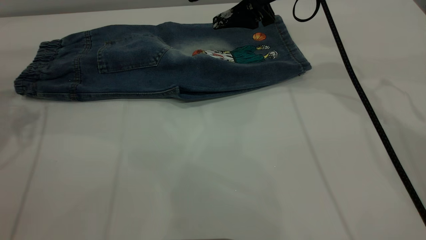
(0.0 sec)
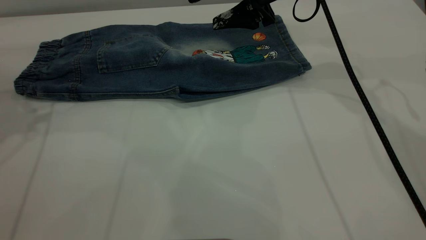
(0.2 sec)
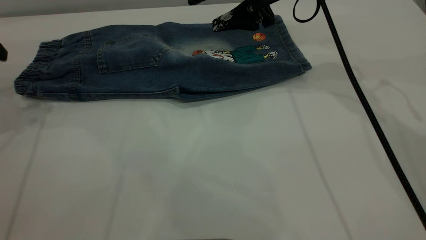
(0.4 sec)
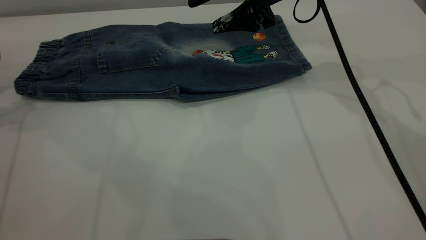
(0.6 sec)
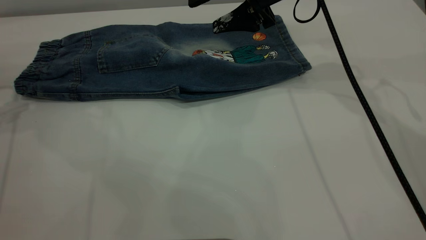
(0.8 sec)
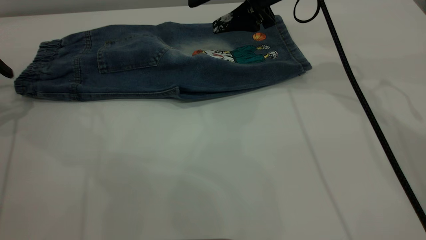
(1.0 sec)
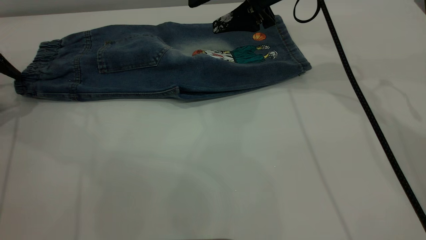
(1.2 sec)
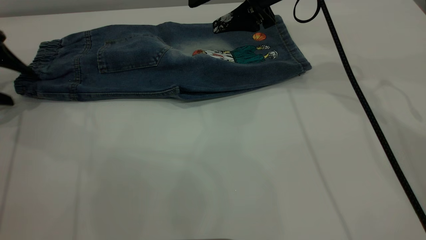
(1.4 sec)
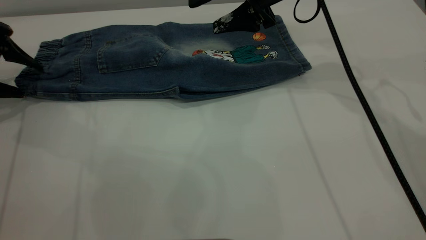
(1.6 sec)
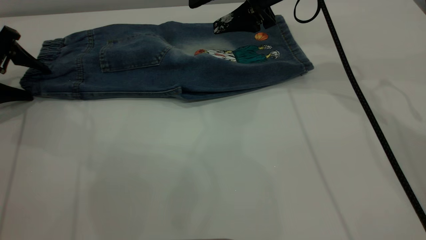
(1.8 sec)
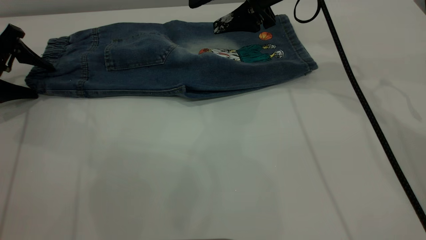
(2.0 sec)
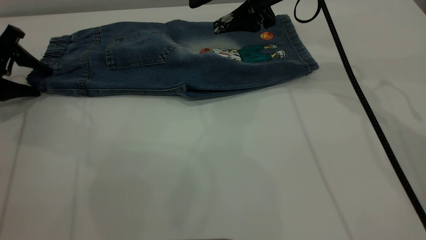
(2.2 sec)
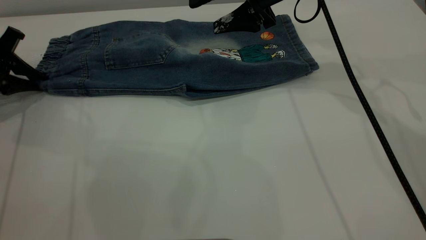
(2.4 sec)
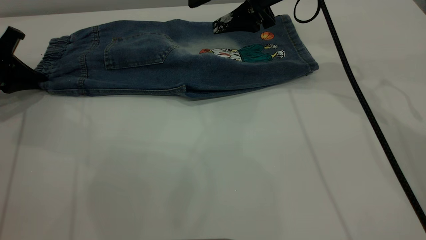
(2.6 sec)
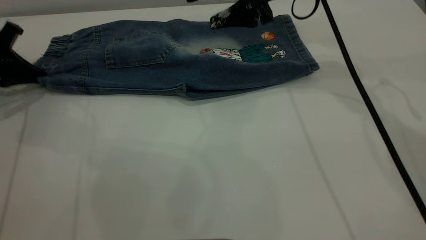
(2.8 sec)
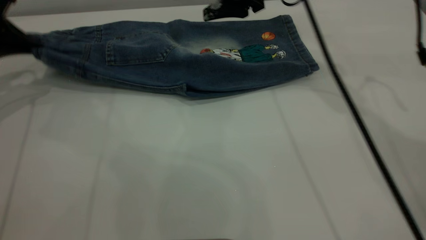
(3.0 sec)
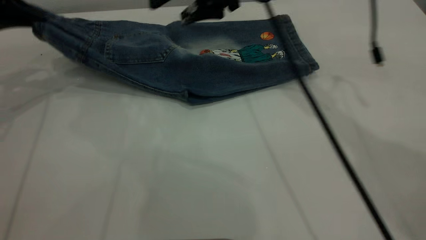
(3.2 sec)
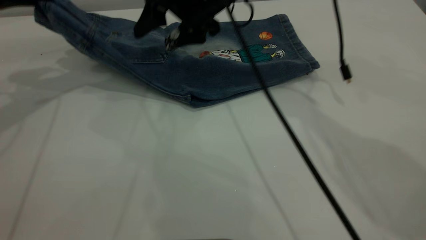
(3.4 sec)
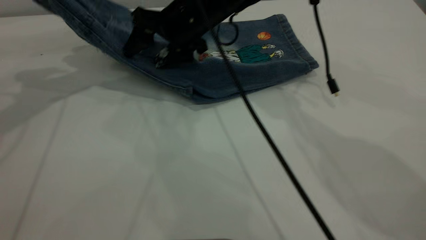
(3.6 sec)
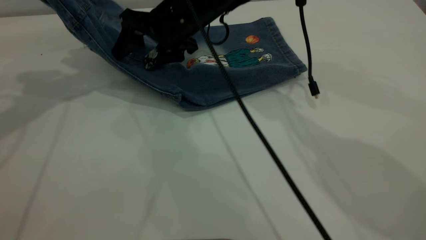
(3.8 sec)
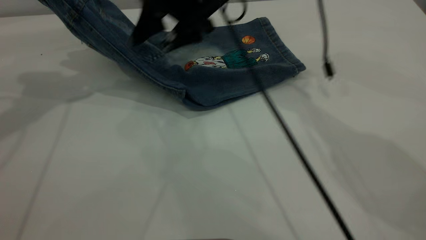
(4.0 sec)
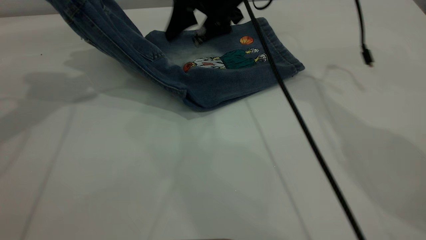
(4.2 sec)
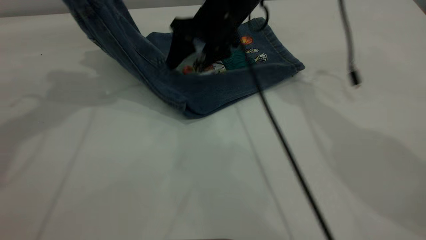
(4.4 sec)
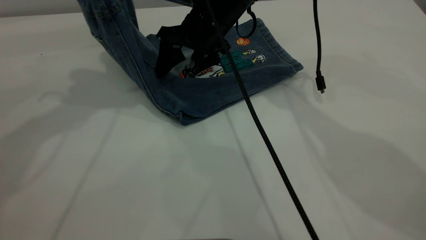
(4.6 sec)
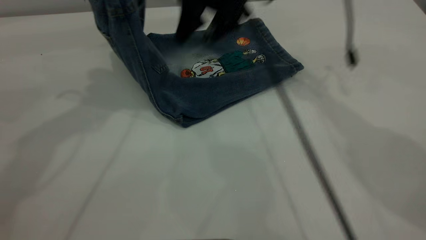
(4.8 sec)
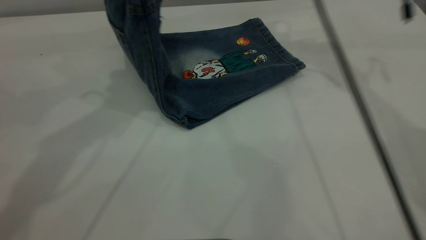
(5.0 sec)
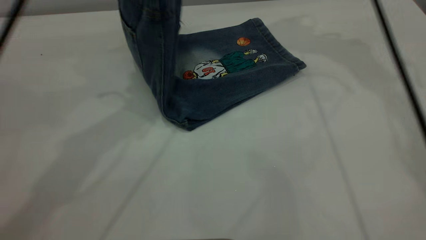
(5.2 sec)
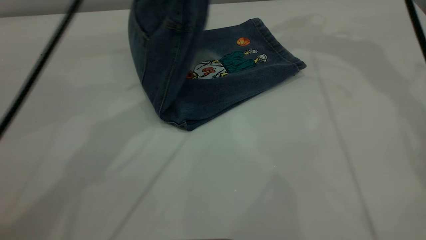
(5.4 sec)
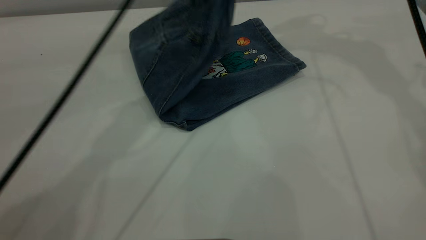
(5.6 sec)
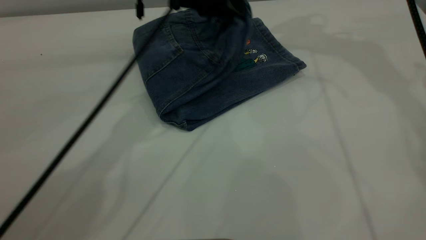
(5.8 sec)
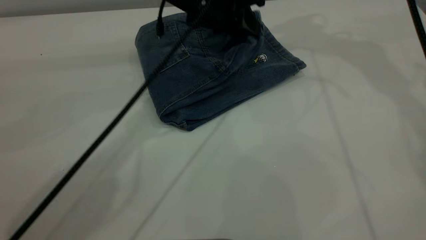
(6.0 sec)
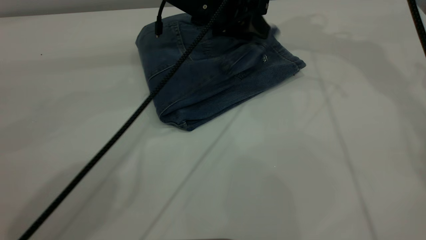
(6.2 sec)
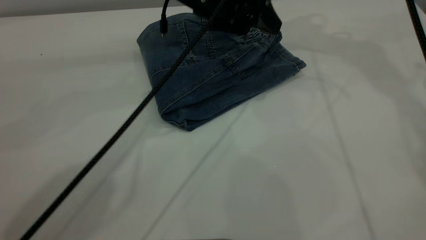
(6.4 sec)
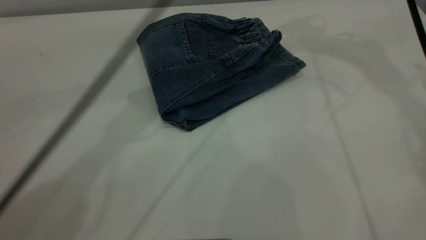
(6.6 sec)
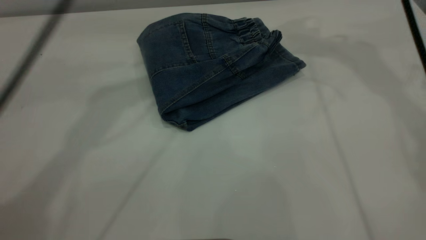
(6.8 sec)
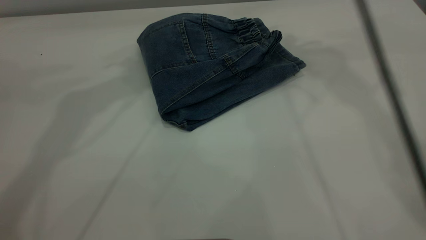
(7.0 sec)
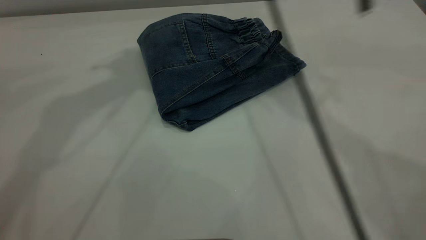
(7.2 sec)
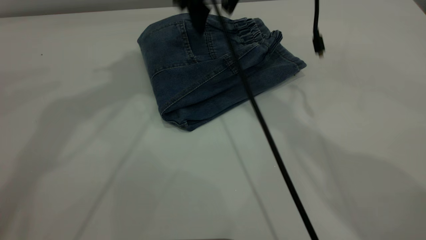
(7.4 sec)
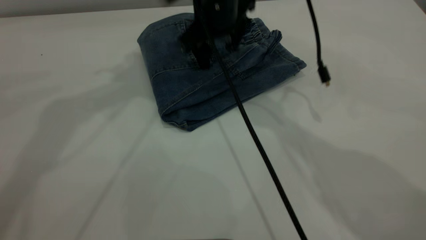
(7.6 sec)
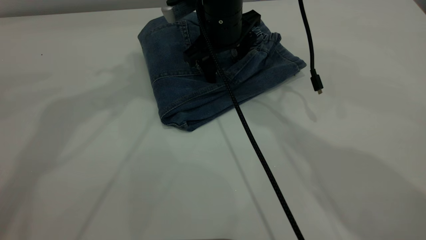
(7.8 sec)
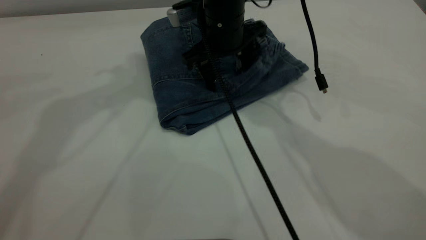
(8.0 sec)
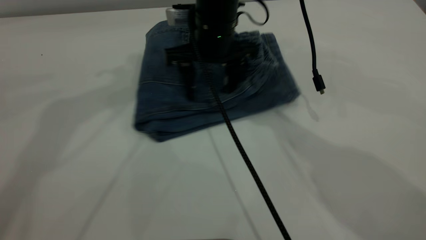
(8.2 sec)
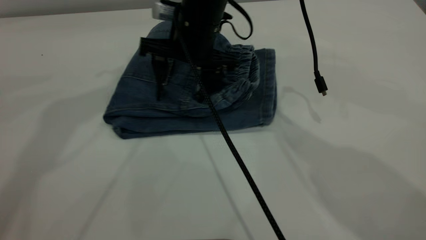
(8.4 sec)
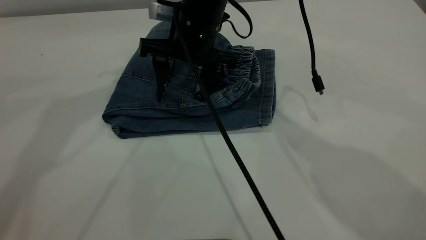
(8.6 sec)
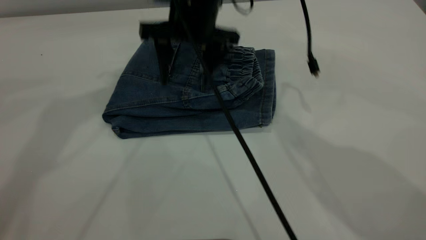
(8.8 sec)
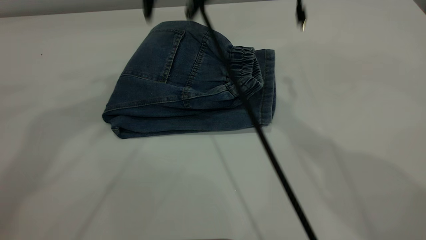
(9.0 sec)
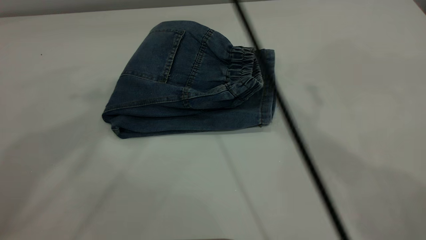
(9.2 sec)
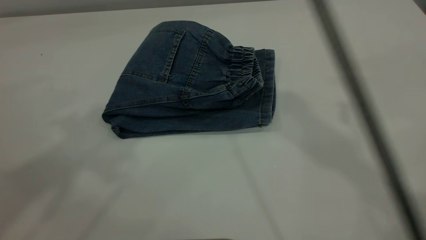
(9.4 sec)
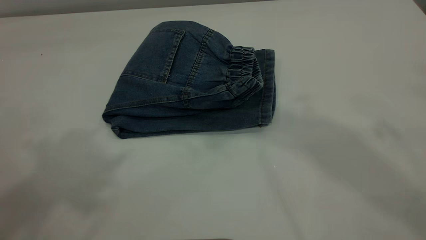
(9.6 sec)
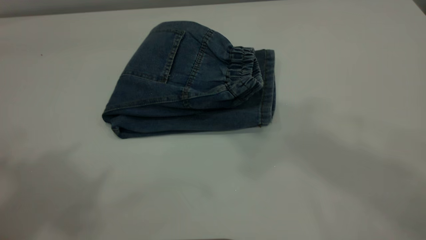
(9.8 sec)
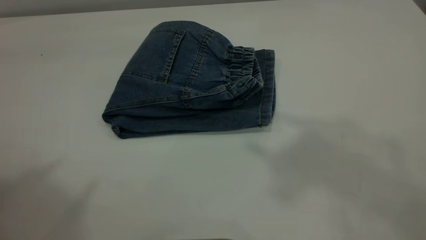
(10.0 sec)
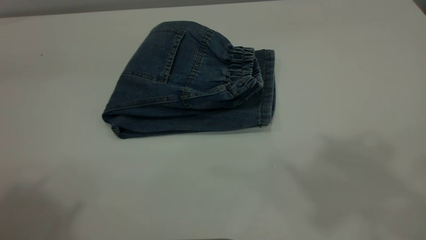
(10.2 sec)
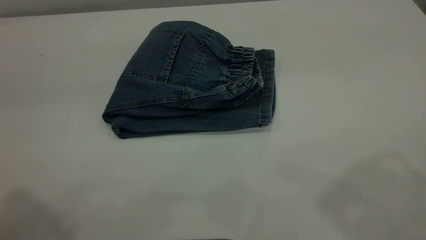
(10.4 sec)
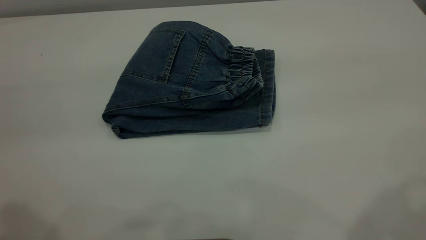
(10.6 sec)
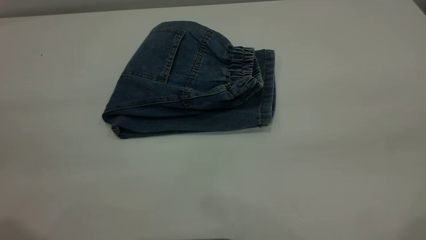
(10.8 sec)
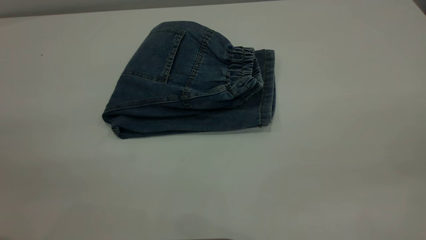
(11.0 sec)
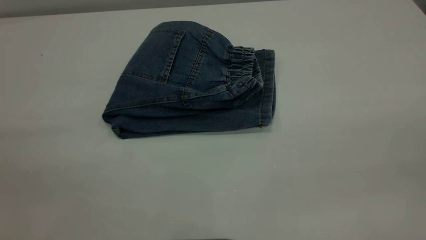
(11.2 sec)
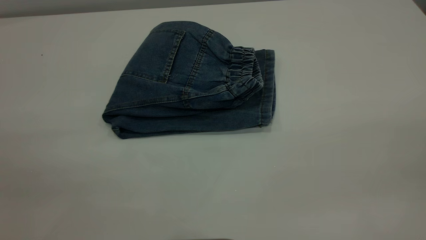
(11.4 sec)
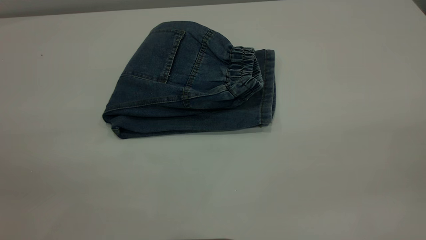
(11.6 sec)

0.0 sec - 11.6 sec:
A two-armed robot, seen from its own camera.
Step, 0.0 sec - 6.4 sec: Fold the pants from left to right.
0.0 sec - 1.4 sec: The left gripper moves downward, about 10 cm.
1.4 sec - 2.8 sec: The left gripper closes up.
2.8 sec - 4.4 sec: The right gripper is displaced to the left and downward by about 10 cm. The left gripper is displaced upward and to the right by about 25 cm.
4.4 sec - 5.8 sec: The left gripper travels to the right and downward by about 25 cm; the right gripper travels upward and to the right by roughly 25 cm.
5.8 sec - 7.2 sec: The right gripper travels to the left and downward by about 15 cm, while the left gripper shifts approximately 25 cm upward and to the left, and opens.
7.2 sec - 8.8 sec: The right gripper shifts approximately 10 cm downward and to the left.
8.8 sec - 10.2 sec: The right gripper goes roughly 50 cm upward, backward and to the right. Meanwhile the left gripper heads backward and upward, covering some 25 cm.

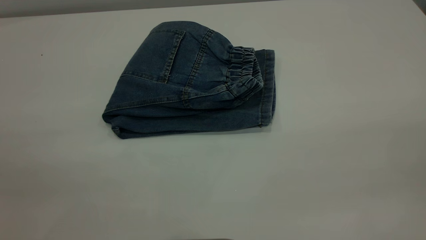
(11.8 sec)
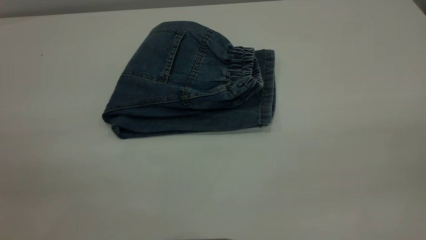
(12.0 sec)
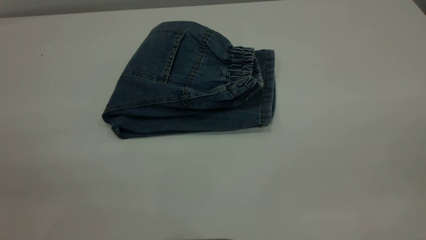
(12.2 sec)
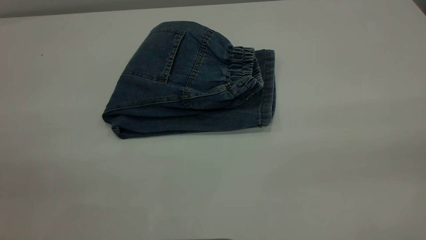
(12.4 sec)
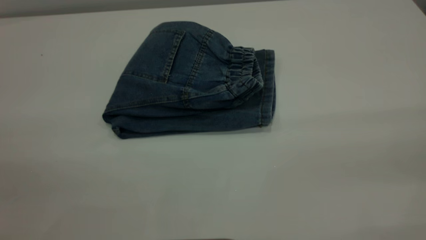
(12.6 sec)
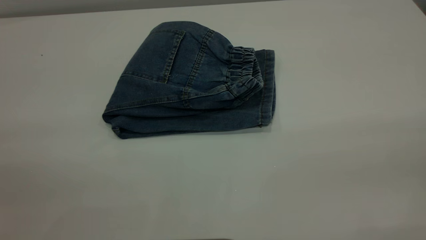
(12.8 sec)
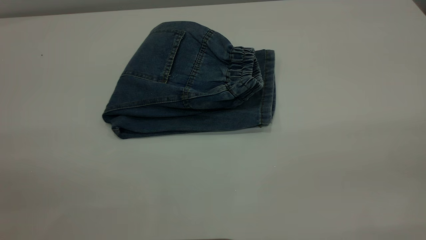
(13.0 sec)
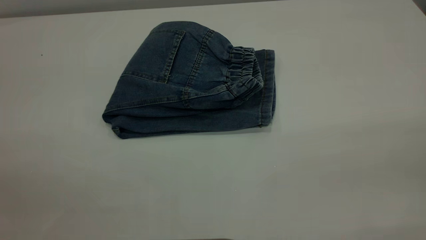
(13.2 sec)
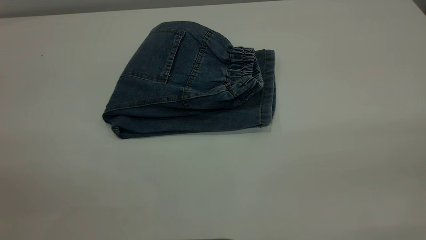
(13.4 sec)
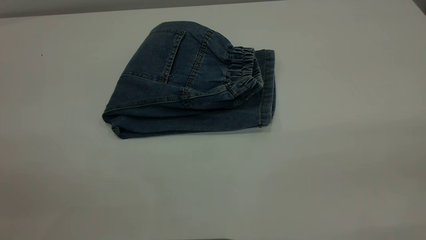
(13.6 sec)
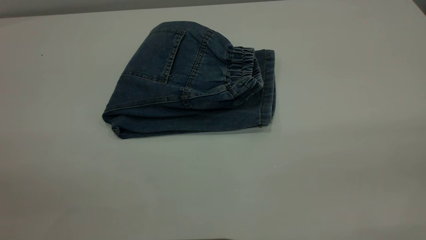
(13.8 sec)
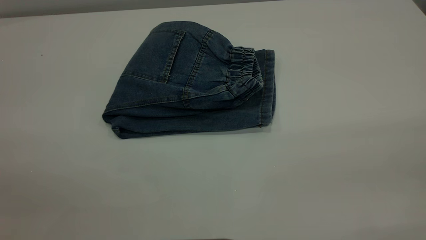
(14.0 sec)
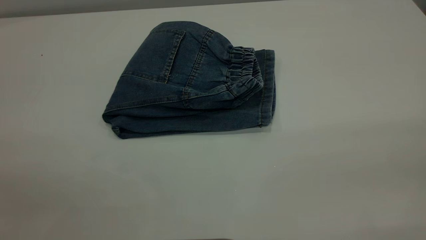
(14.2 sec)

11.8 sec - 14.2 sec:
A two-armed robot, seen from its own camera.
13.0 sec - 14.2 sec: Neither gripper changes place.
